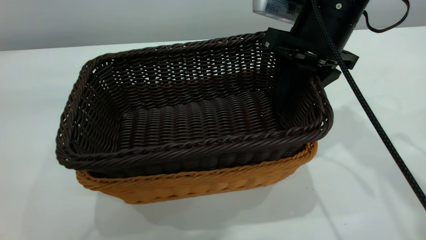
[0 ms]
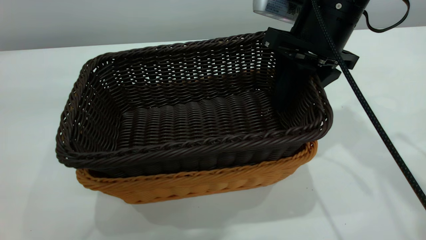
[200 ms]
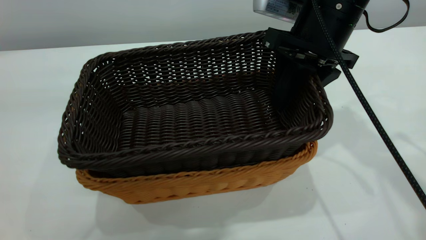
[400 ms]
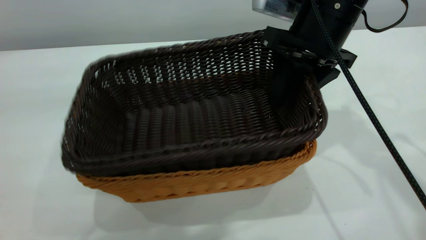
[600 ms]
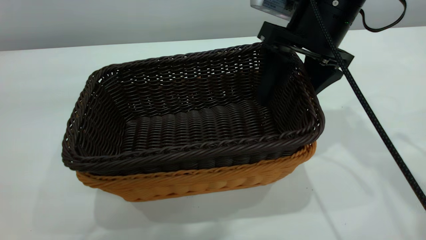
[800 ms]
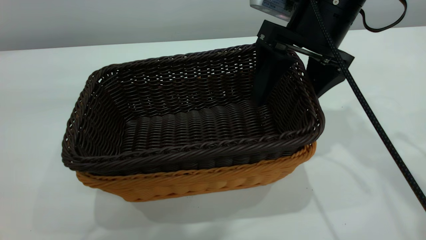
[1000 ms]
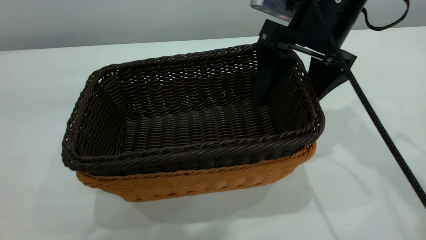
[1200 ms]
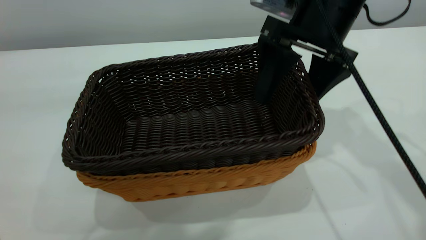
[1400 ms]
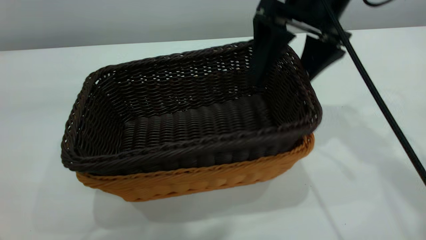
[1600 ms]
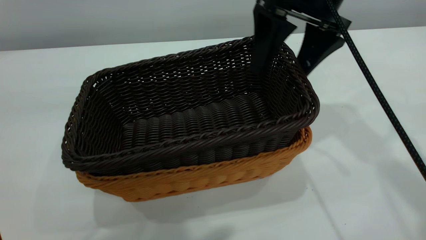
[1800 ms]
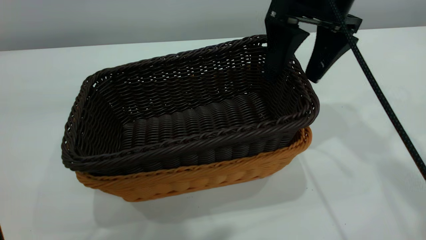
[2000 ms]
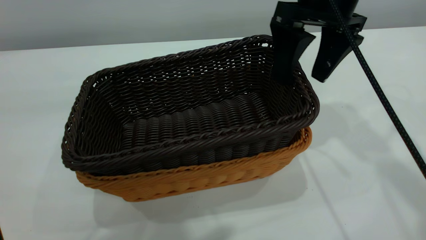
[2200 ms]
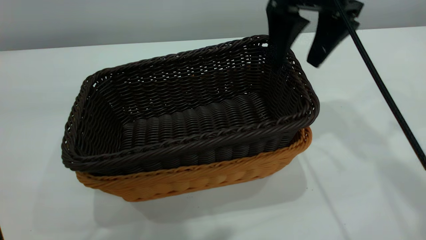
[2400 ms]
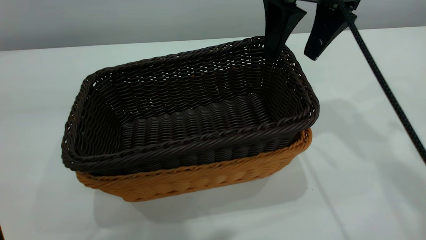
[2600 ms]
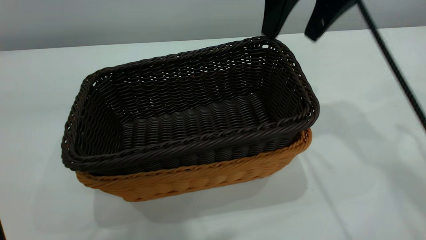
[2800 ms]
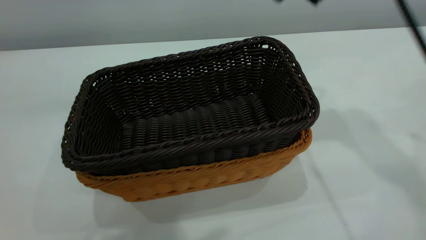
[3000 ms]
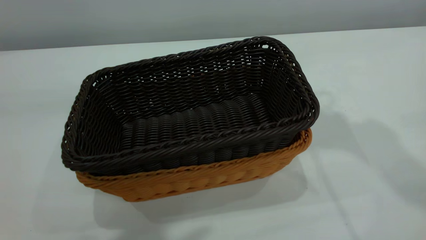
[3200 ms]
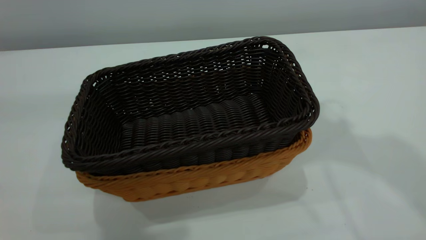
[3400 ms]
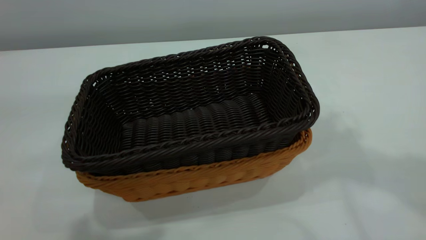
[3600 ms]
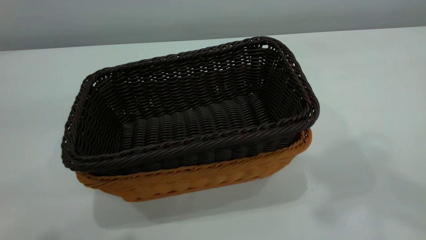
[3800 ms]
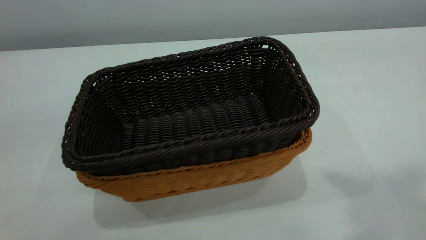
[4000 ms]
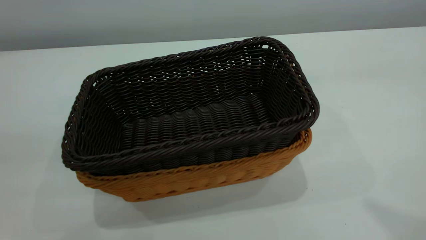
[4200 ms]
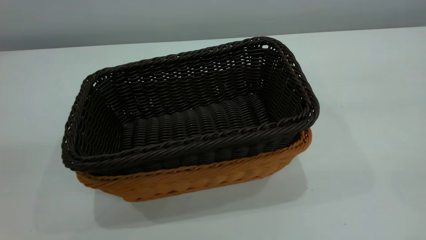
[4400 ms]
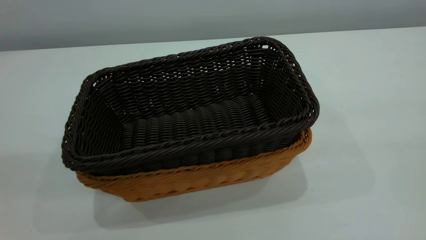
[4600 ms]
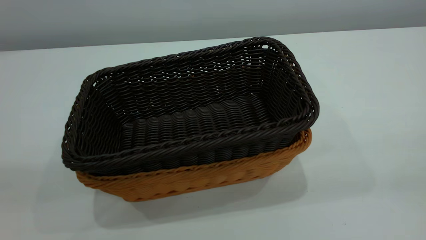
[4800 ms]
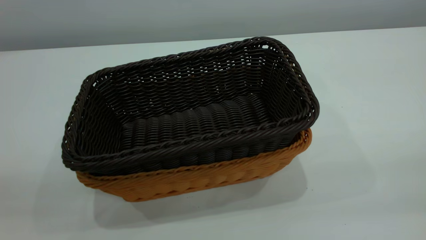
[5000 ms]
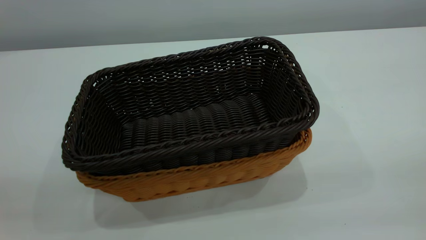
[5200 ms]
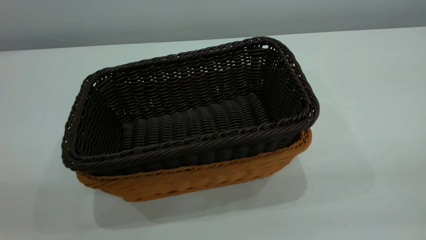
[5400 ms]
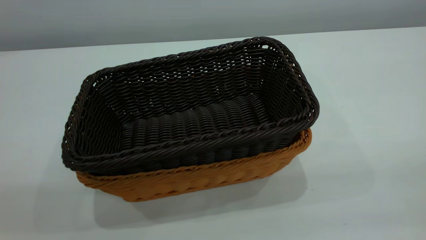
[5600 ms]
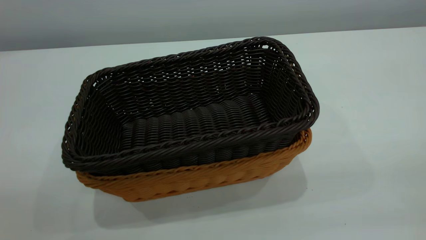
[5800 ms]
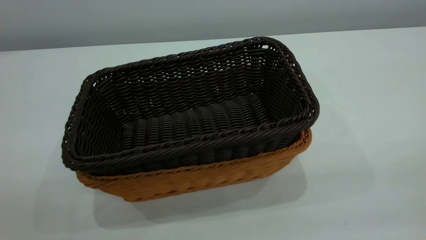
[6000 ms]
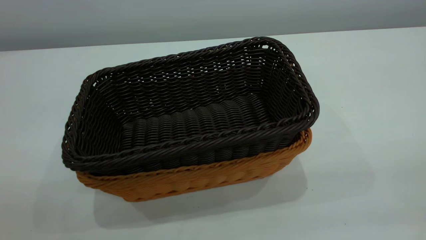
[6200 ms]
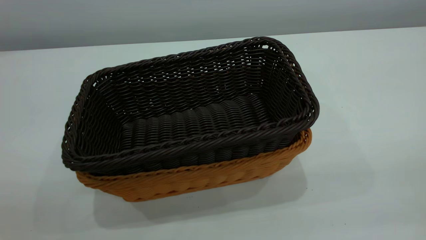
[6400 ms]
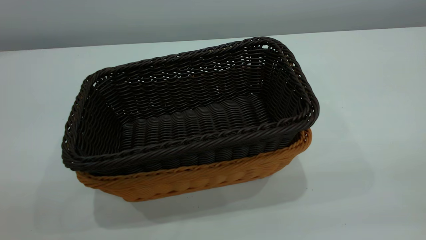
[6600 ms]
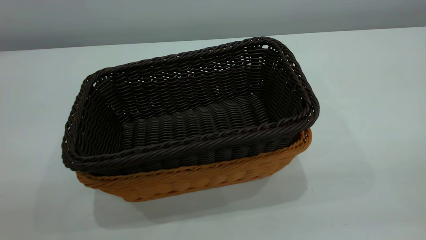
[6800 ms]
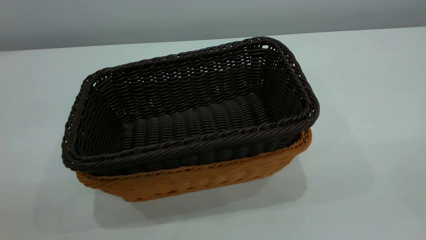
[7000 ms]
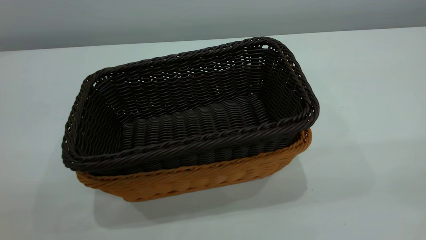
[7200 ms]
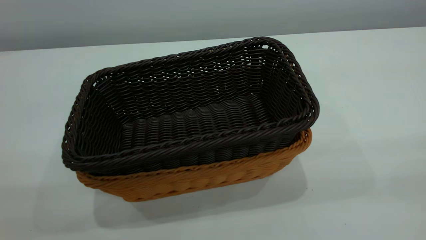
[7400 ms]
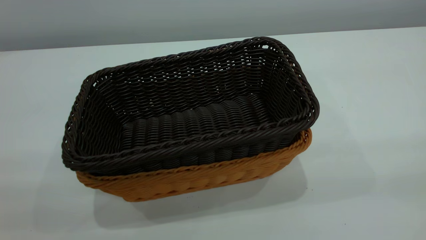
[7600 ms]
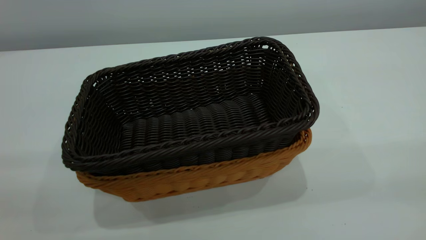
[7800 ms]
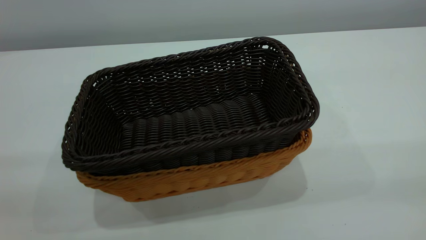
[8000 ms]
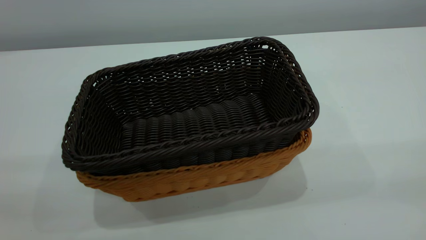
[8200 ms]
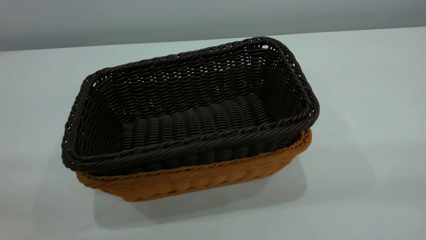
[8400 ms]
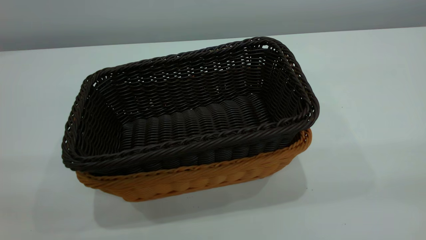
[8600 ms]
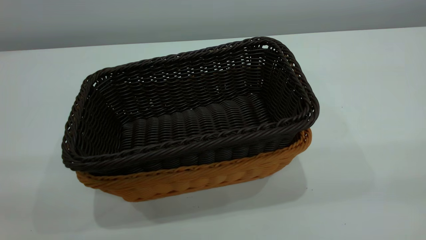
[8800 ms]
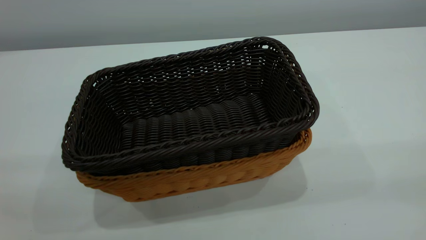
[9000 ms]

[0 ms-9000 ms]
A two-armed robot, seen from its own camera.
Task of the whole recording: the left gripper grasp the brown basket and place it in the center of the table, the right gripper grasp the black basket and place it inside the brown one.
Step, 0 ms to 2600 ms: Place the dark basket on top of the light basket.
0 ms to 1600 ms: The right gripper opens up.
1600 ms to 3000 ms: The right gripper is displaced upward by some 10 cm, and closes its fingers.
3000 ms to 4400 ms: The right gripper moves backward and upward, approximately 30 cm, and closes.
